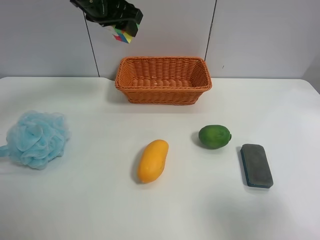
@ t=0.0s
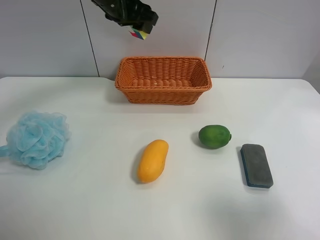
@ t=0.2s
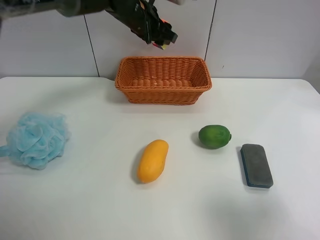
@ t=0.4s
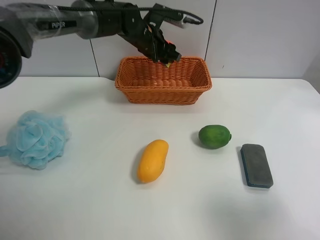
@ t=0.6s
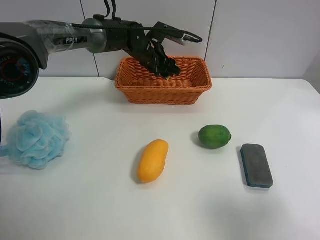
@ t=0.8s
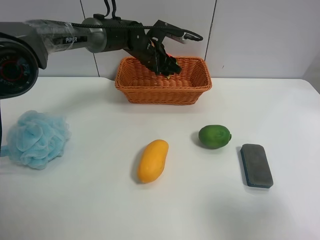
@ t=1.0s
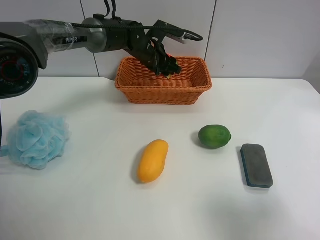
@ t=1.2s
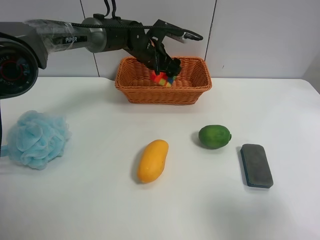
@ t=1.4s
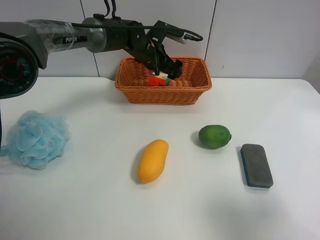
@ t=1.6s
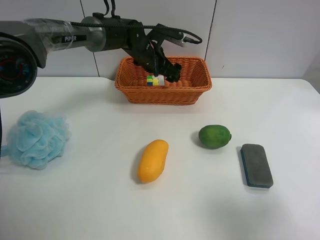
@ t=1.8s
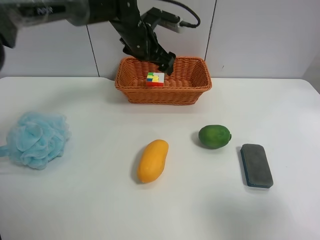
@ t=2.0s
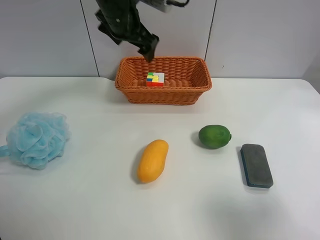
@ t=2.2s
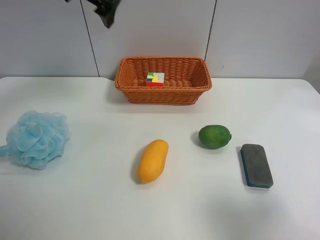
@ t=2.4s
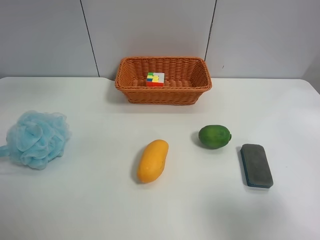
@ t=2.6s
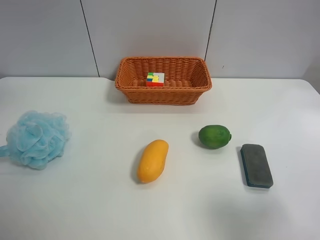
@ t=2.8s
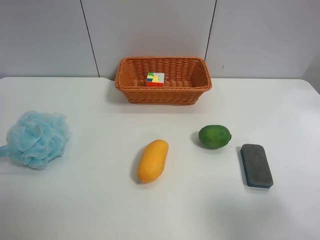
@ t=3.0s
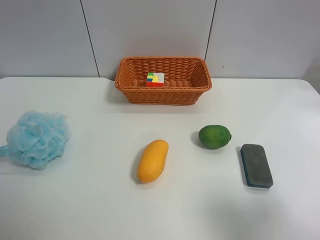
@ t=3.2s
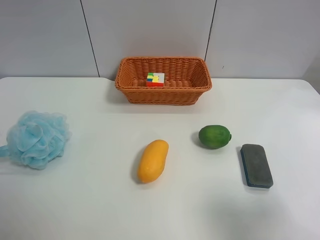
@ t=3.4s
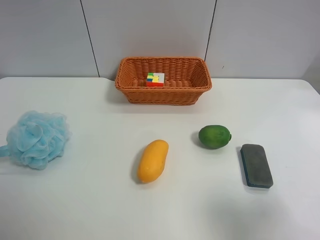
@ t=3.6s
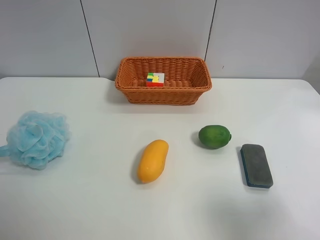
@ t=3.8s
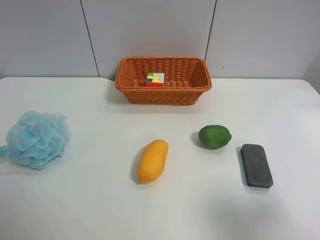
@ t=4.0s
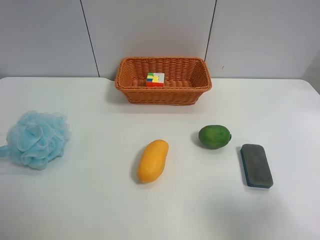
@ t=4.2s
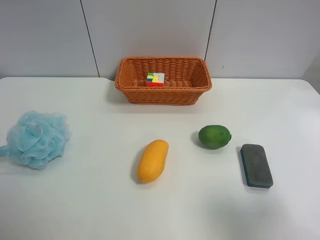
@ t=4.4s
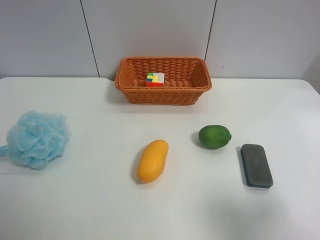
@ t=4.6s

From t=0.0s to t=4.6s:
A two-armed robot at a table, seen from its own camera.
Task of the whole recording: use the left gripper to grab items from the table and place them in the basket.
Step, from t=0.0s to t=1.6s: Place the Rubik's Cube into the basket with the left gripper.
From t=0.0s to t=1.6s: The left gripper heads downward, to the right and forward, covering about 20 cm, and opens.
From t=1.6s to t=3.0s: The left gripper moves upward, backward and to the left, about 50 cm.

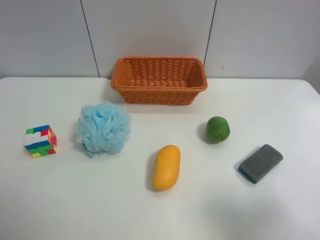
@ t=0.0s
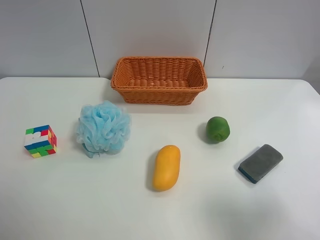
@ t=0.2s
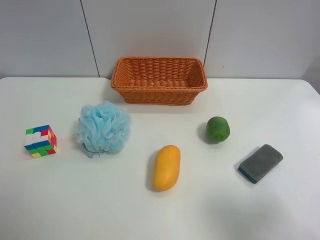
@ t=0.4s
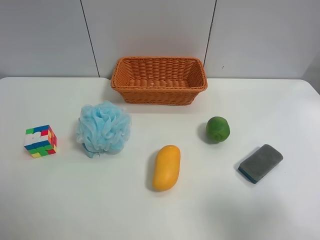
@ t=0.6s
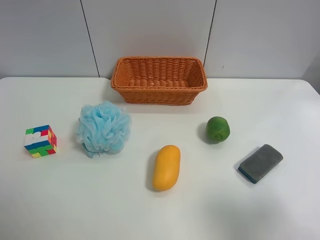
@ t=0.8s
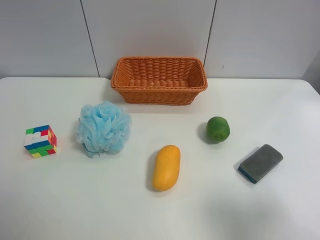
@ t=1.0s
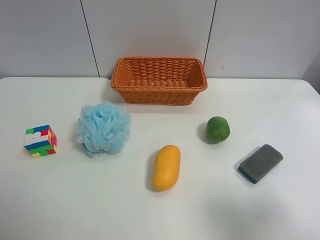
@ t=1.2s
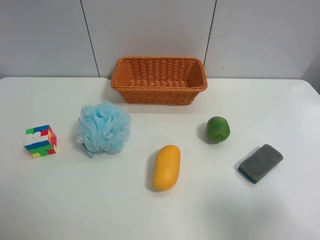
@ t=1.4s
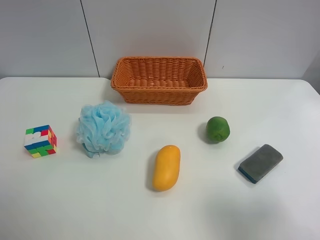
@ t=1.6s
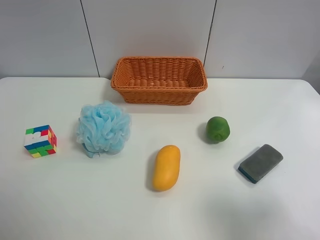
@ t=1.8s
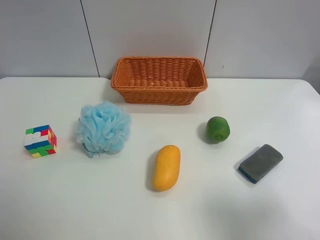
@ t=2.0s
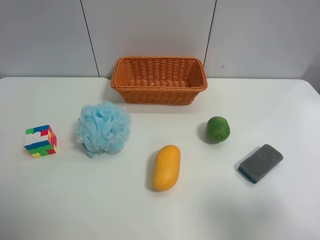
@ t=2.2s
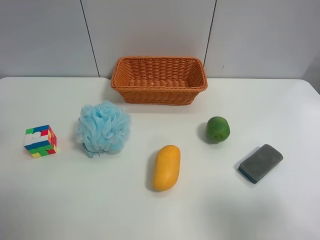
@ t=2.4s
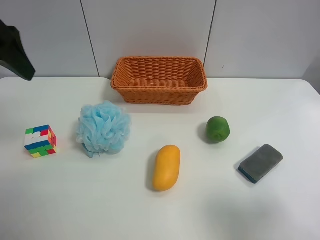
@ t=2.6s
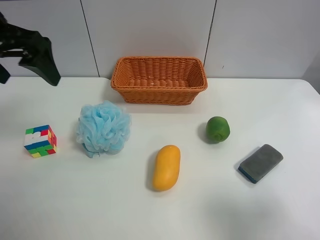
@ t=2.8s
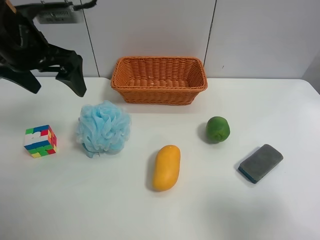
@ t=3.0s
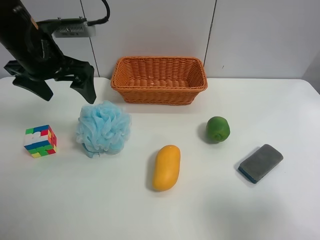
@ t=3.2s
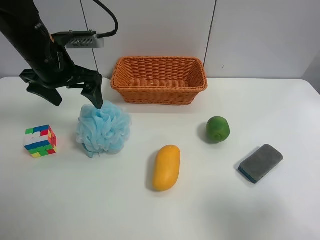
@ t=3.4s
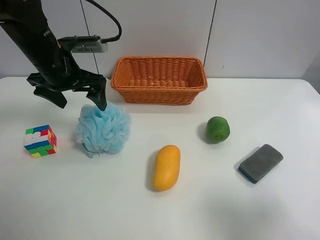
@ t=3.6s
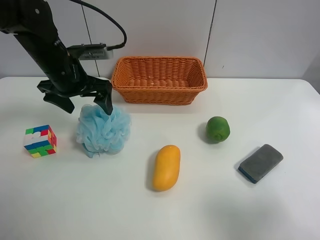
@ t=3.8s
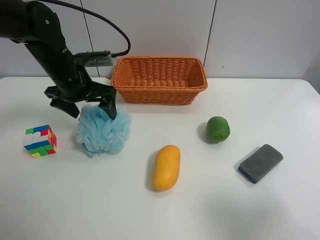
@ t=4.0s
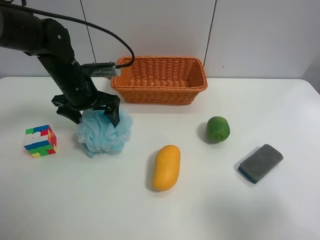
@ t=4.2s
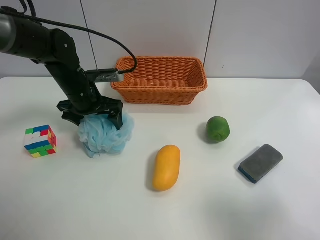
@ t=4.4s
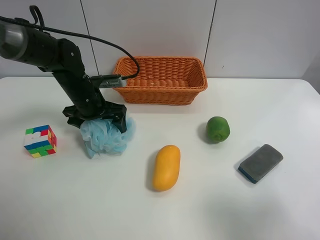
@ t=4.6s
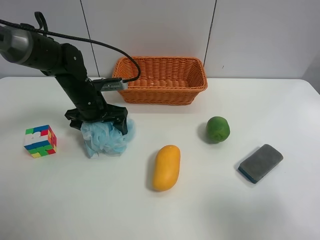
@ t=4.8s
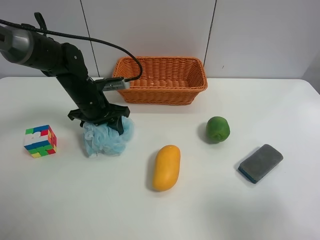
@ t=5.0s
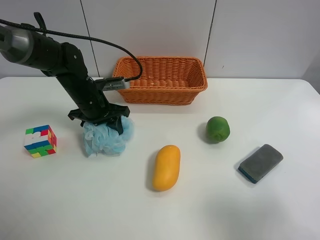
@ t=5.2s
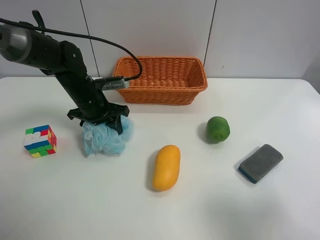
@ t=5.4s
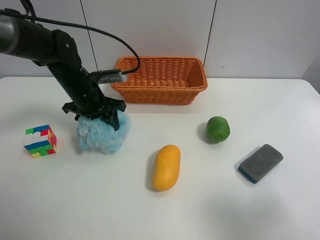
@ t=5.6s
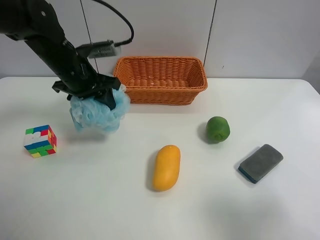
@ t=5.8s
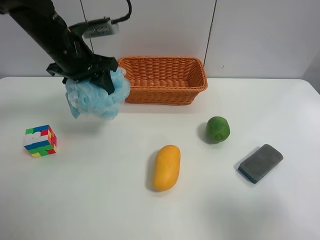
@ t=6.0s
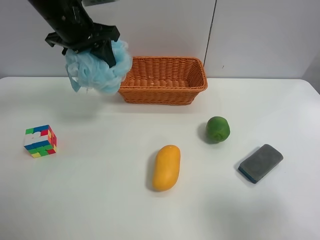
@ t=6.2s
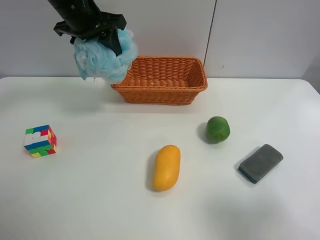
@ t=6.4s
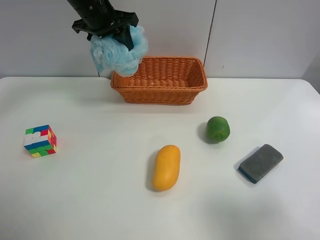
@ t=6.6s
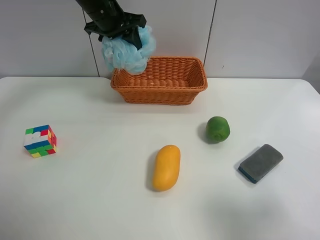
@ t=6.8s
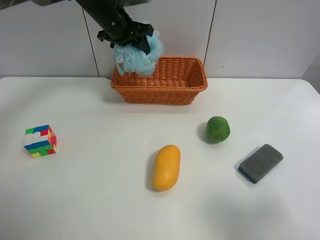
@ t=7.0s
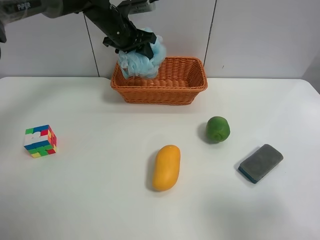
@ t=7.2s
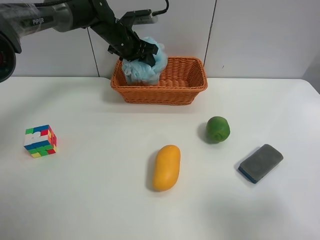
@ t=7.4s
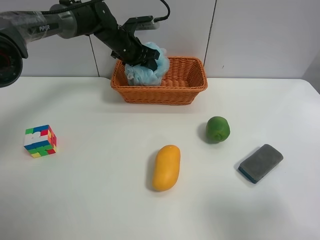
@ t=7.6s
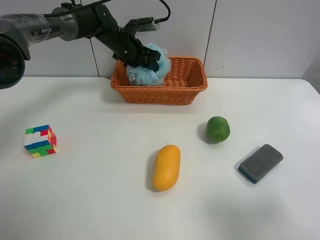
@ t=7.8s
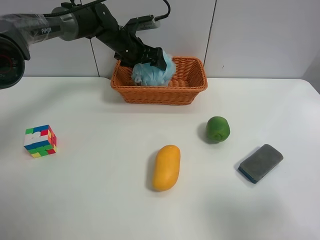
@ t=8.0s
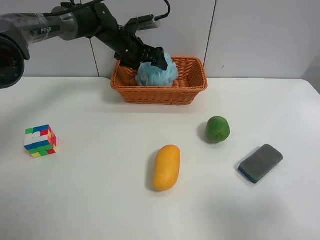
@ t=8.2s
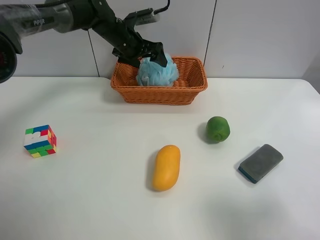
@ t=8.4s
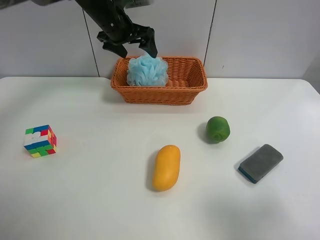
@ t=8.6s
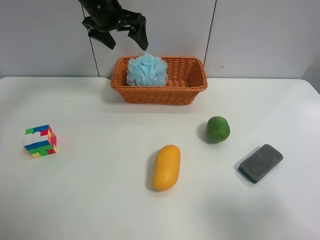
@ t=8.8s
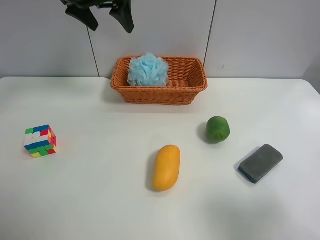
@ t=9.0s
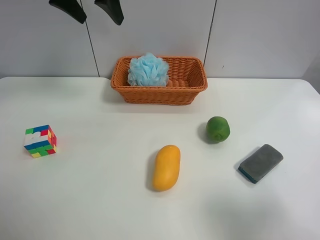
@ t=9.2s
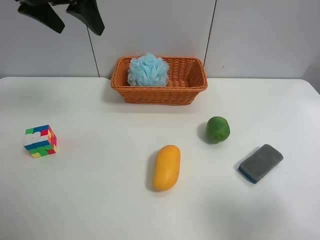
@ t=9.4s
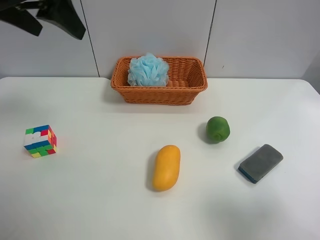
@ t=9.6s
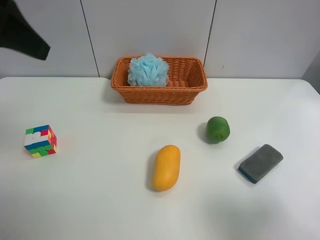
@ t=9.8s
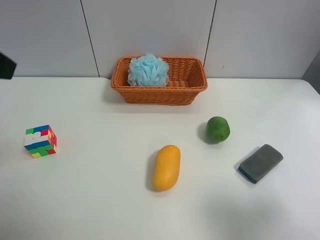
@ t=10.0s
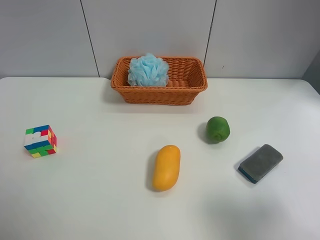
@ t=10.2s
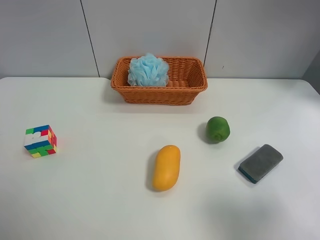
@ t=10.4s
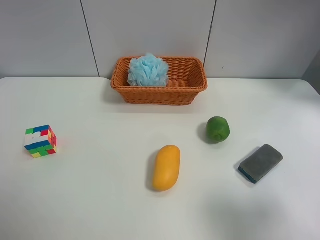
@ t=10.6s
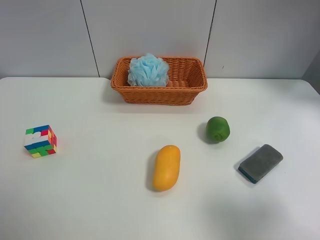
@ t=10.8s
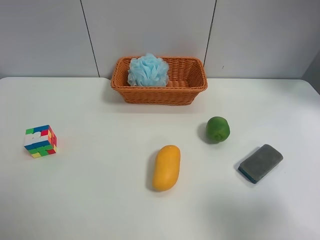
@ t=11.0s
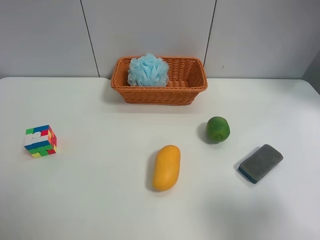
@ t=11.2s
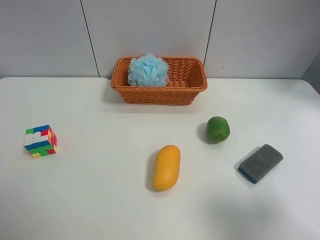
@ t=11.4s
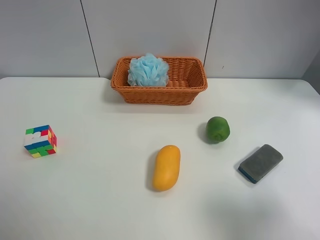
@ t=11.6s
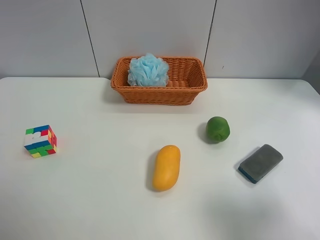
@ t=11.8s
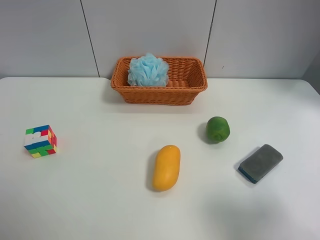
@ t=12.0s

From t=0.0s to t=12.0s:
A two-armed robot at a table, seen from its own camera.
Task of the whole recording: use the left gripper to grab items from the table and place them in the basket.
Step, from t=0.0s to t=4.8s: Grasp the Shower puff with the left gripper.
Step, from t=5.0s to t=8.2s: Place the Shower puff into the basket with the left gripper.
From t=1.6s to t=3.0s: The left gripper heads forward, covering some 30 cm.
From t=3.0s to t=4.4s: The left gripper shifts some 15 cm downward and forward.
From t=4.4s to t=6.0s: The left gripper shifts about 10 cm upward, and closes up.
From t=6.0s to t=7.6s: The left gripper is displaced forward and to the right by approximately 20 cm.
From t=7.6s to t=9.0s: The left gripper goes about 20 cm upward and backward, and opens up.
From t=9.0s to t=10.4s: The left gripper travels backward by approximately 35 cm.
